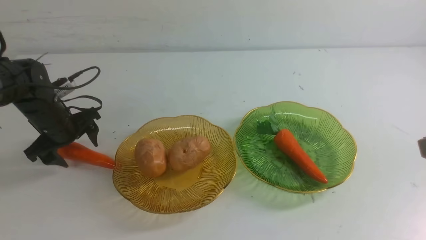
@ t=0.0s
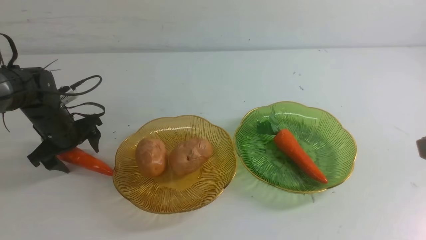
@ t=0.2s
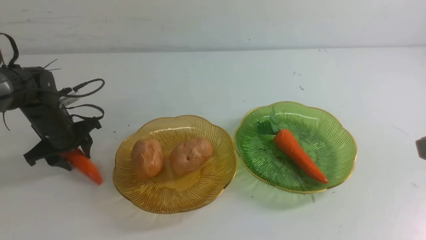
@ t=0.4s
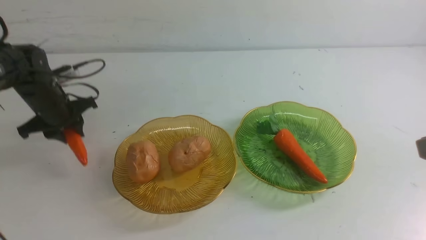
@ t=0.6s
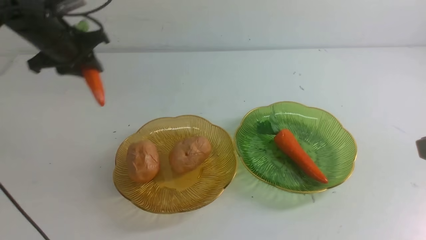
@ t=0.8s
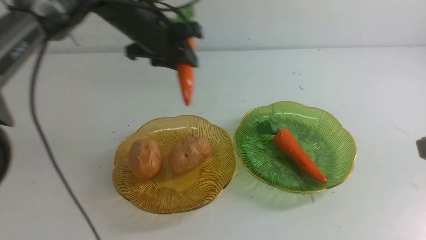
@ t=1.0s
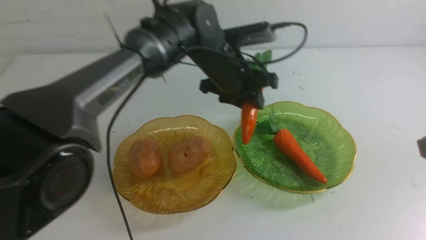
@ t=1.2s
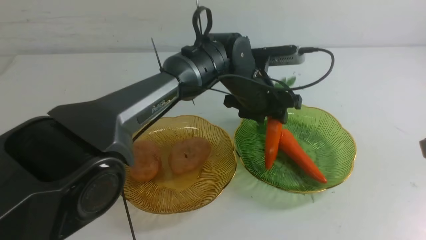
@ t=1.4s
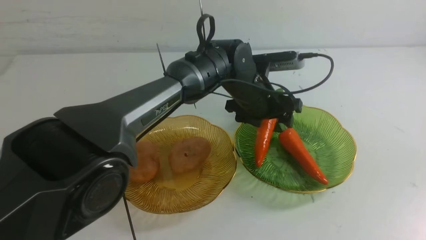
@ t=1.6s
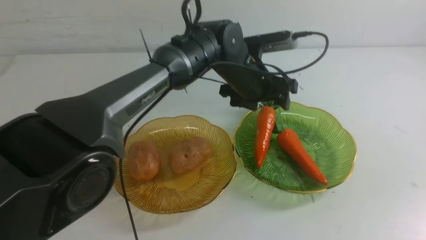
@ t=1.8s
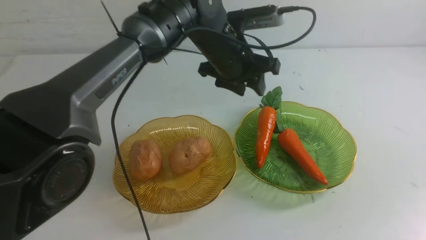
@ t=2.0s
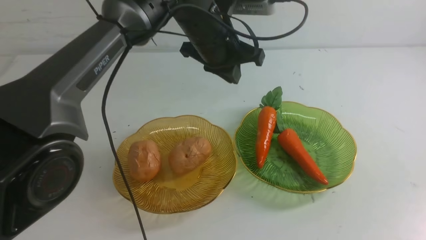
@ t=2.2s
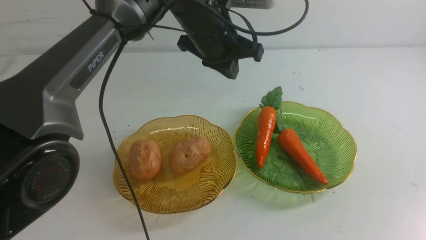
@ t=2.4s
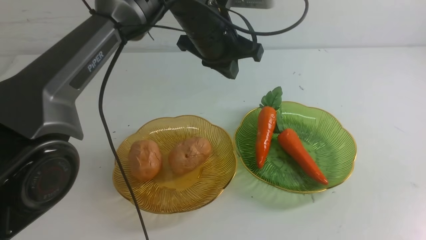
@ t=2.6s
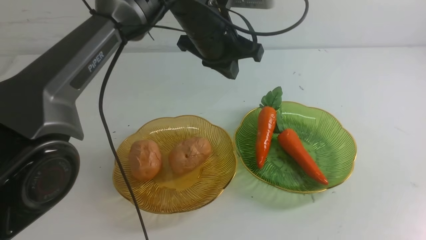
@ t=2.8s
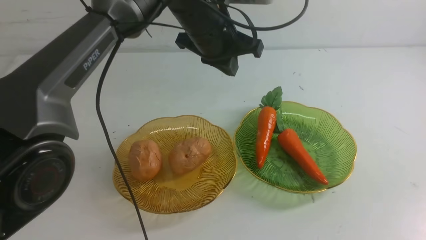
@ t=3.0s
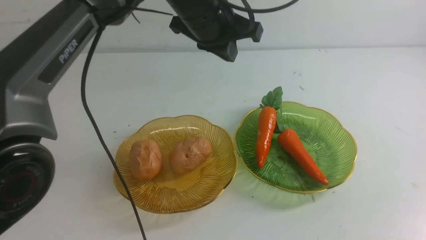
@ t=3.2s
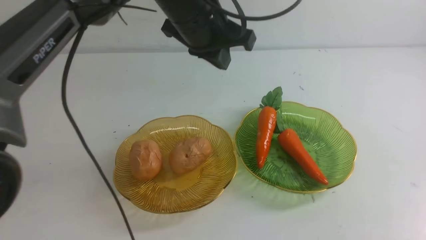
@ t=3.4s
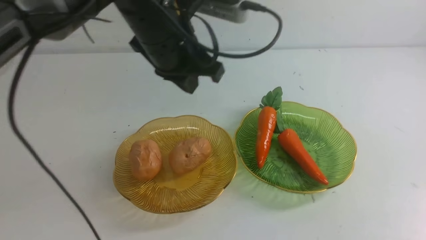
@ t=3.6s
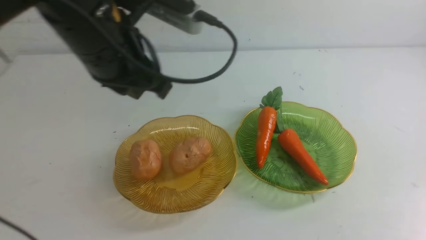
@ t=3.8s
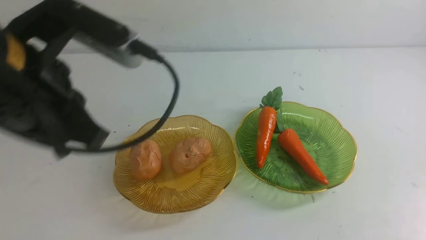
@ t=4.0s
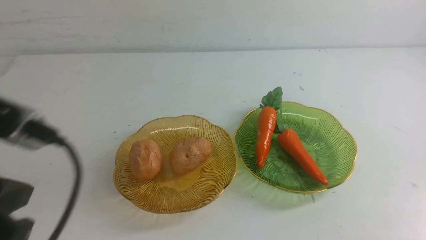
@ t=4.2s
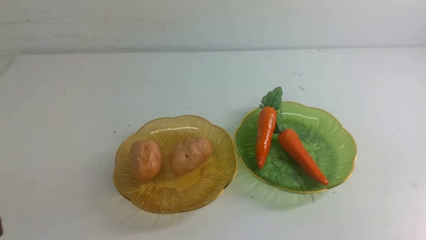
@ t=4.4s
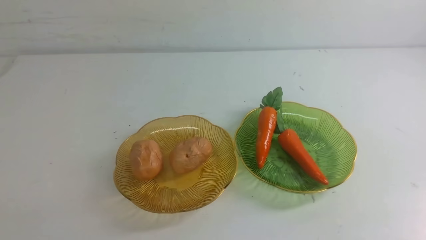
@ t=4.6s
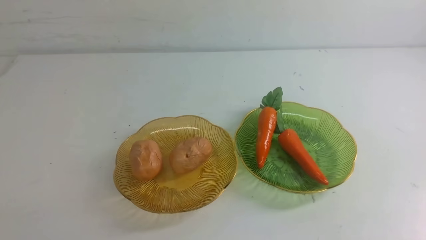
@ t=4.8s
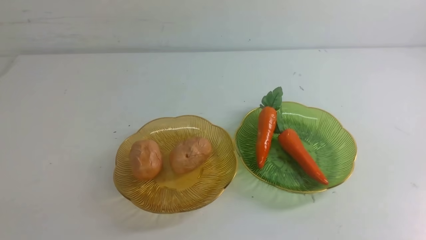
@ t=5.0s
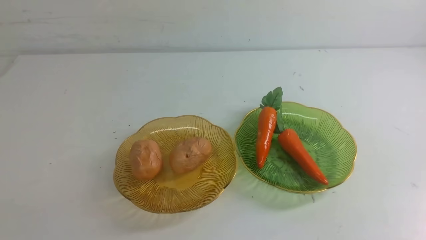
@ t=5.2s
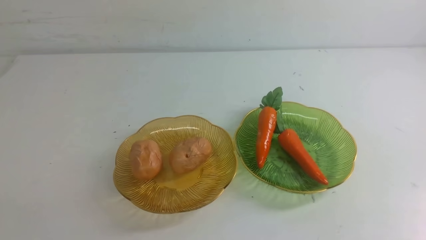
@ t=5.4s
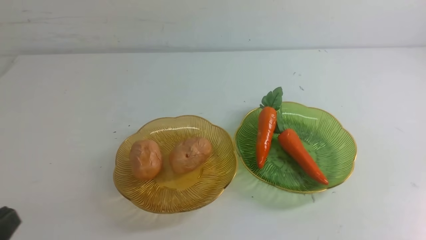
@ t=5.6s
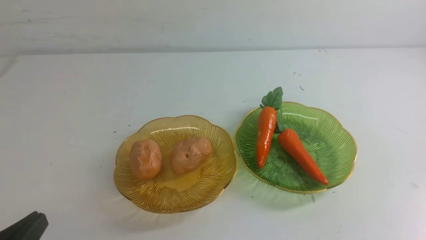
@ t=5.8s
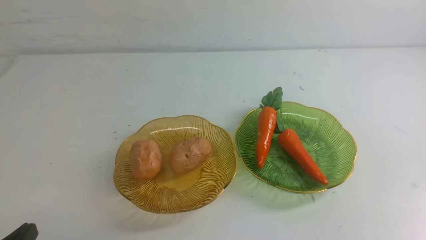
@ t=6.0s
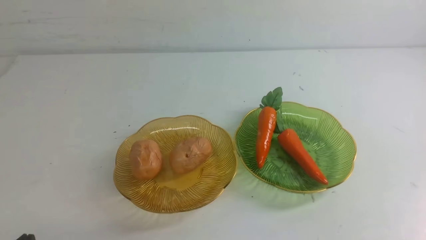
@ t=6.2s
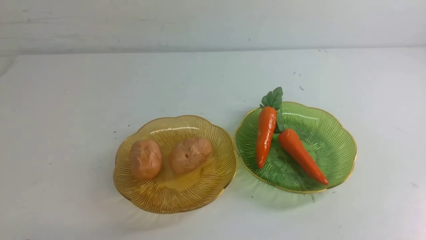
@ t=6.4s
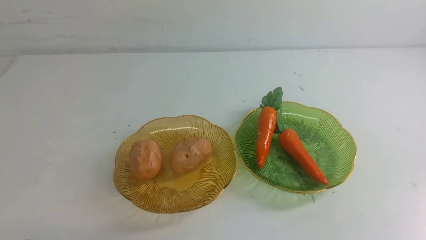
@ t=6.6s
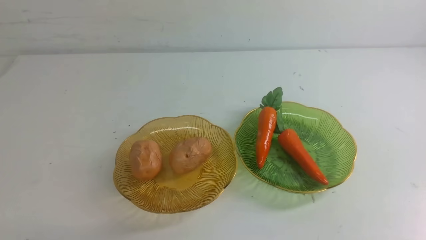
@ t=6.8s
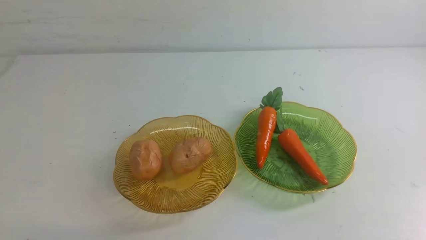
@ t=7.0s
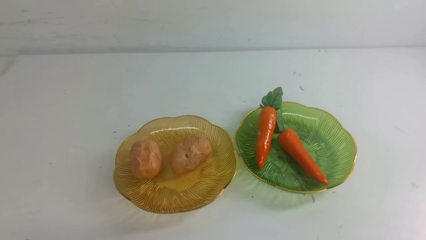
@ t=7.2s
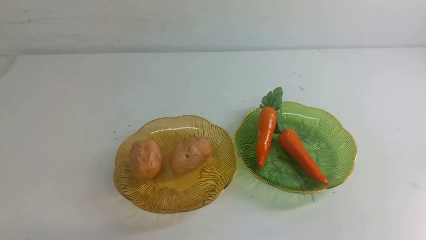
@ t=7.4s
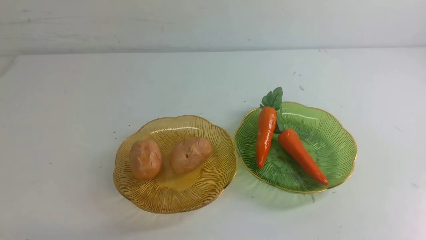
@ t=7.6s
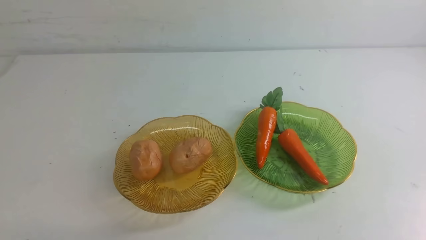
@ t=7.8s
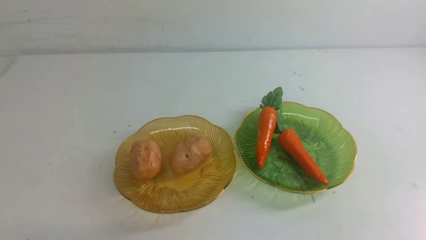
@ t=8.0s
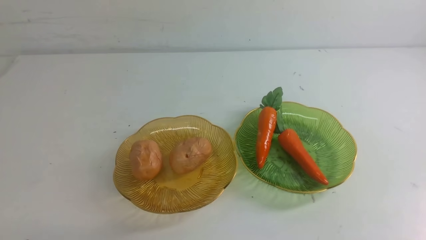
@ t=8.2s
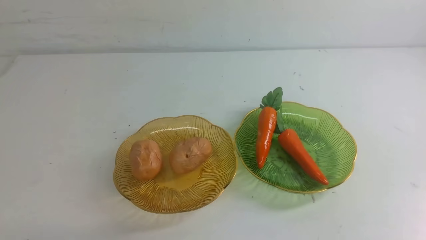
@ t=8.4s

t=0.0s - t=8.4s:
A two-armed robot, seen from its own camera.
Step, t=0.0s - t=1.6s: use the left arm to grab a carrot and put it into the right plate.
t=0.0s - t=1.4s: The left gripper is displaced to the right by about 35 cm.
t=1.4s - t=2.8s: The right gripper moves downward and backward, about 10 cm, while the left gripper moves upward and to the left, roughly 10 cm, and closes up.
t=2.8s - t=4.2s: The left gripper is displaced backward and to the left by about 35 cm. Meanwhile the right gripper travels downward by some 10 cm.
t=4.2s - t=5.6s: The left gripper travels downward and backward by about 10 cm.
t=7.0s - t=8.4s: Both grippers stay put.
